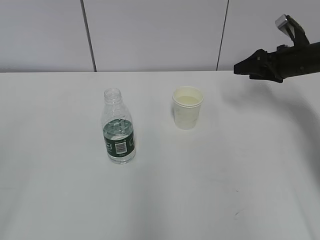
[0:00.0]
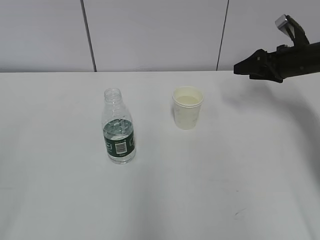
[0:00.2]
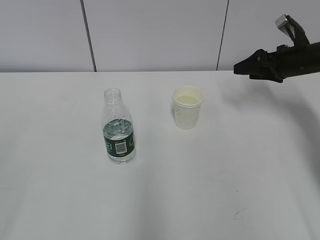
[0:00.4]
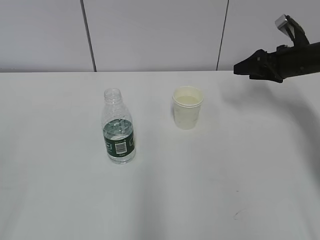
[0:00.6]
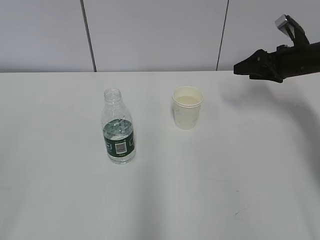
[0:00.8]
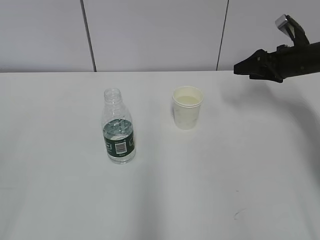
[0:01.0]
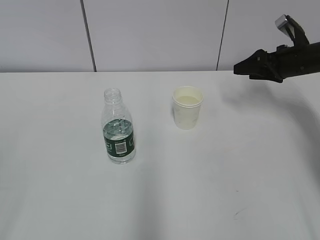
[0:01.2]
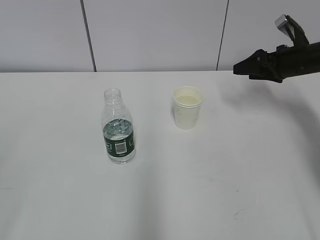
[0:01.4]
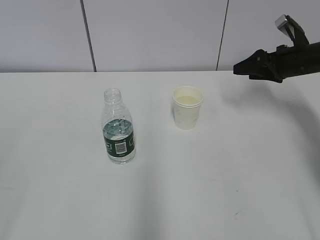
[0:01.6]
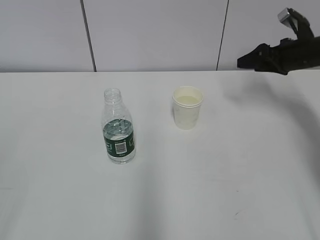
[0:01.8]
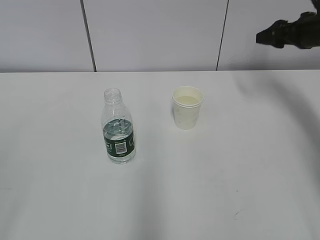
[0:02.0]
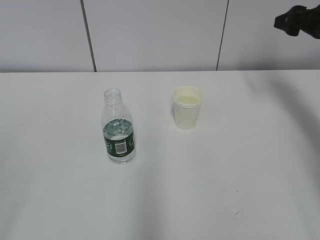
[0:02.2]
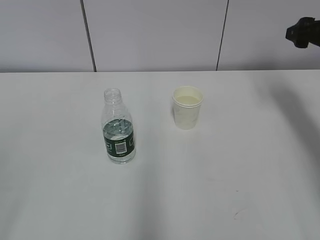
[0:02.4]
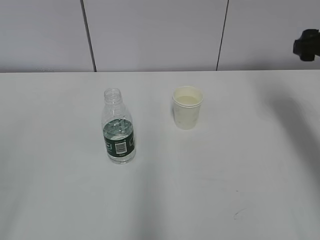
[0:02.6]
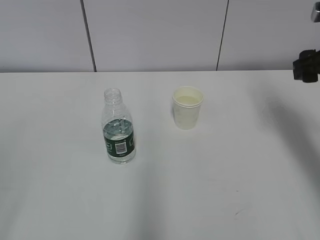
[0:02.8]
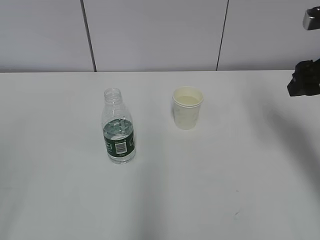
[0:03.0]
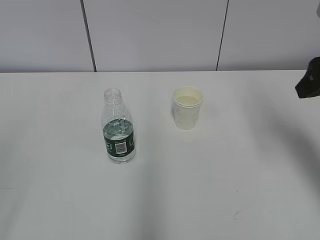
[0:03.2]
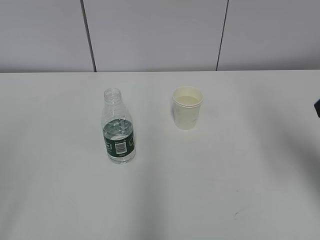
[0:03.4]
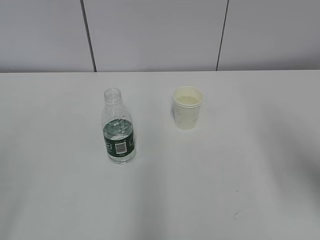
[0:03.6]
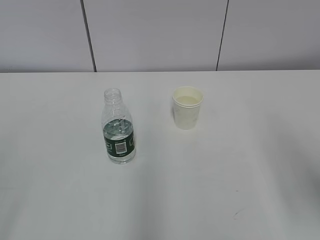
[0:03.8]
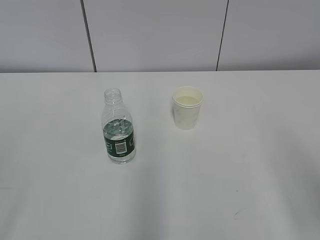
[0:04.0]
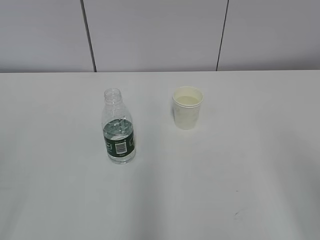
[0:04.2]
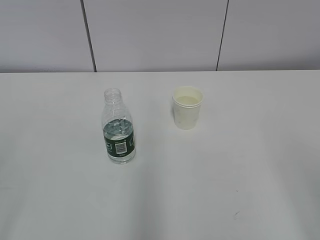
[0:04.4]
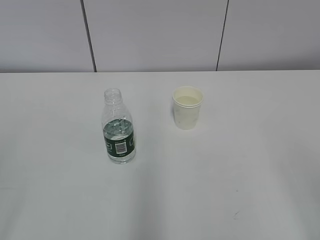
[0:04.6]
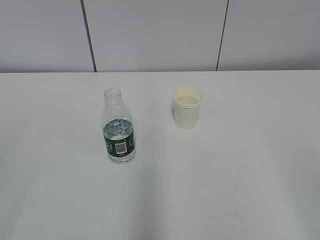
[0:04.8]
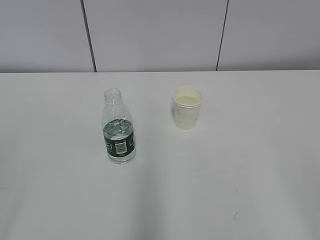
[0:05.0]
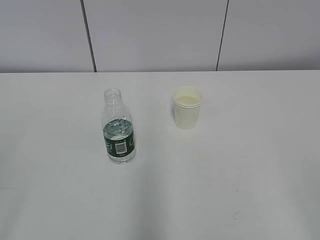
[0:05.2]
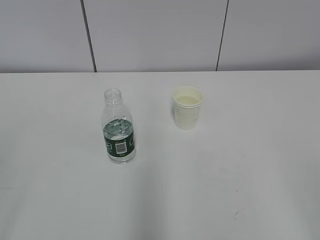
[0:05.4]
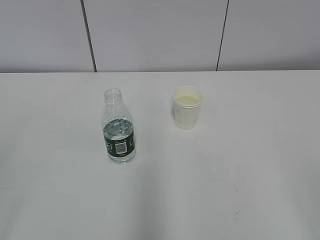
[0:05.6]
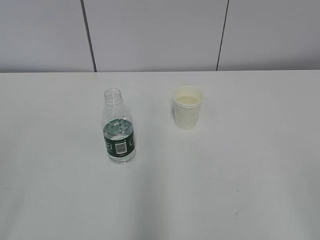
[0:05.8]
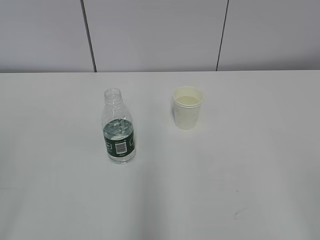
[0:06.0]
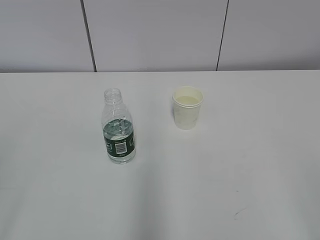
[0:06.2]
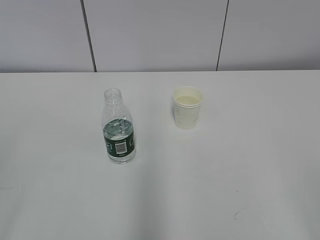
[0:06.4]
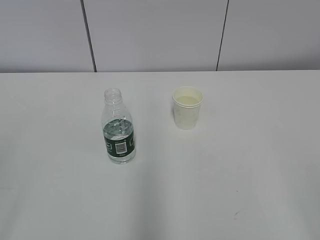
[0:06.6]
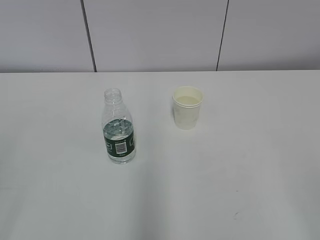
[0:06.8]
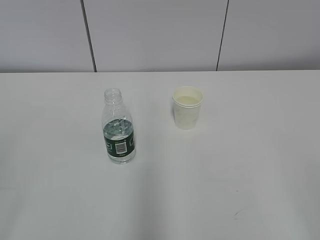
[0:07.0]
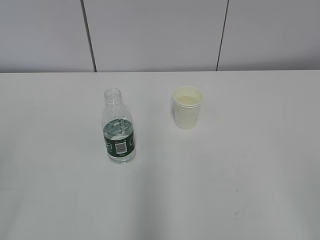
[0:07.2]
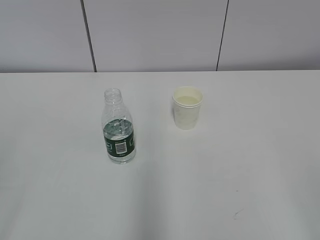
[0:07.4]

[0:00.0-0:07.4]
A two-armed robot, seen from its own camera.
0:01.4 to 0:03.0: The right gripper is displaced backward and upward by some 15 cm.
0:03.0 to 0:04.4: The right gripper travels backward by some 30 cm.
0:06.0 to 0:07.4: The two grippers keep their place.
